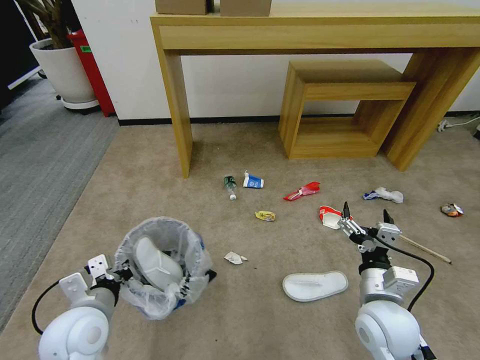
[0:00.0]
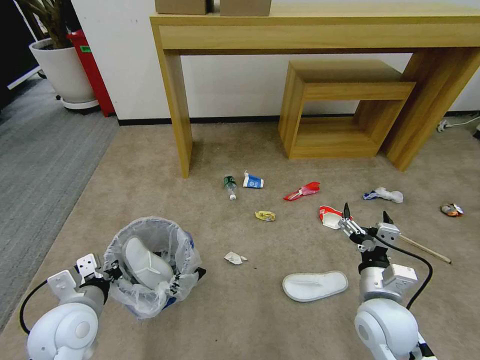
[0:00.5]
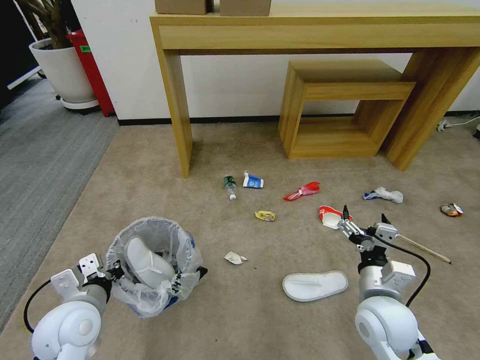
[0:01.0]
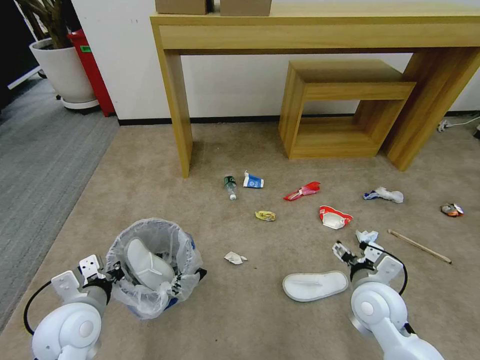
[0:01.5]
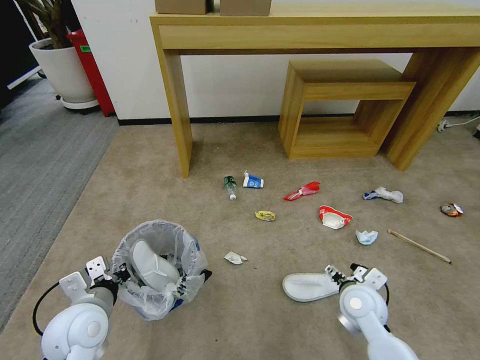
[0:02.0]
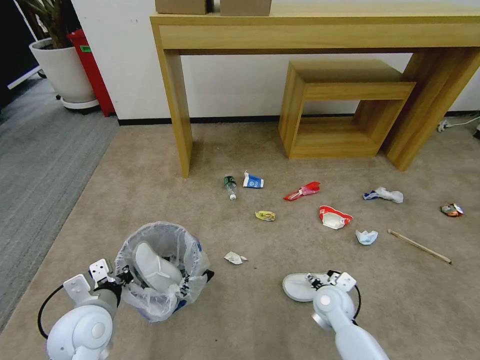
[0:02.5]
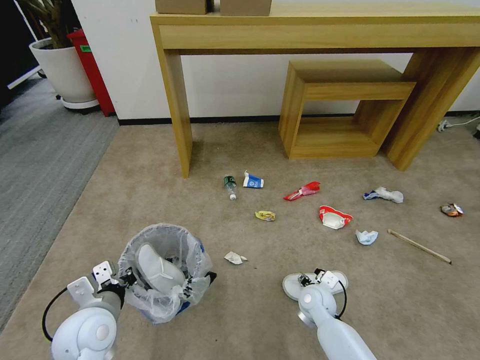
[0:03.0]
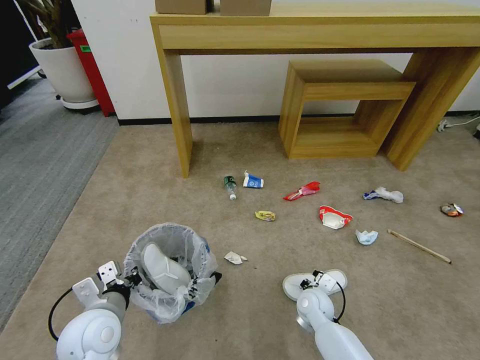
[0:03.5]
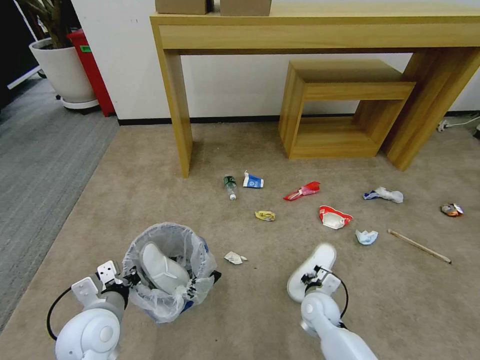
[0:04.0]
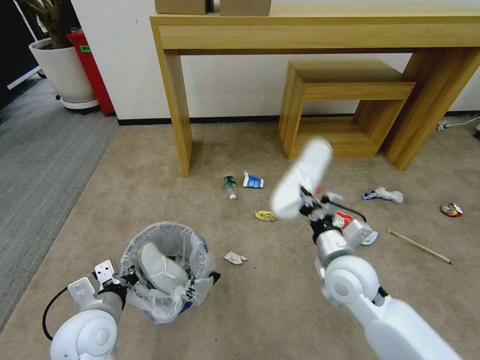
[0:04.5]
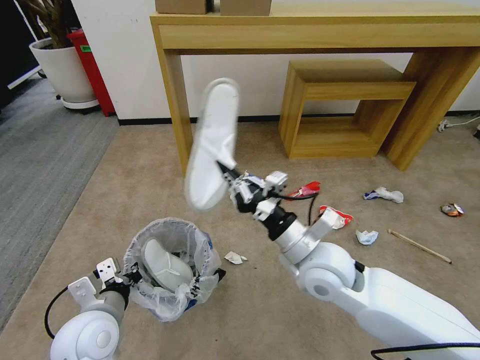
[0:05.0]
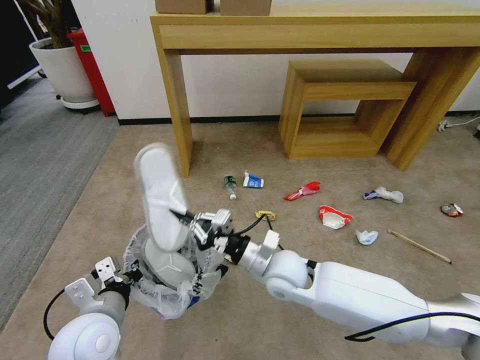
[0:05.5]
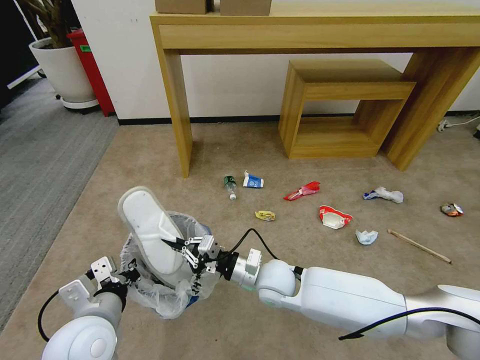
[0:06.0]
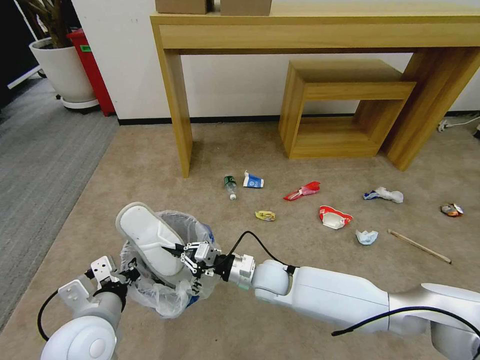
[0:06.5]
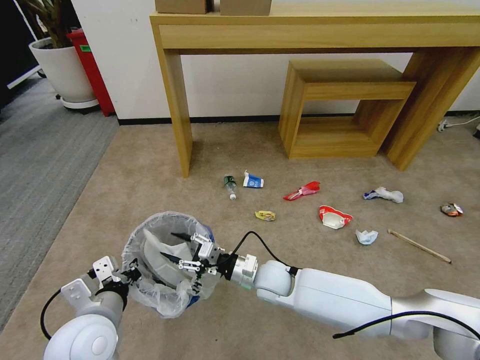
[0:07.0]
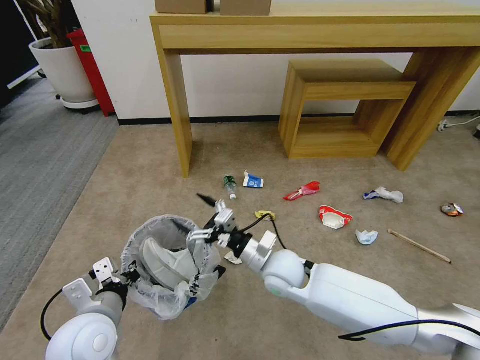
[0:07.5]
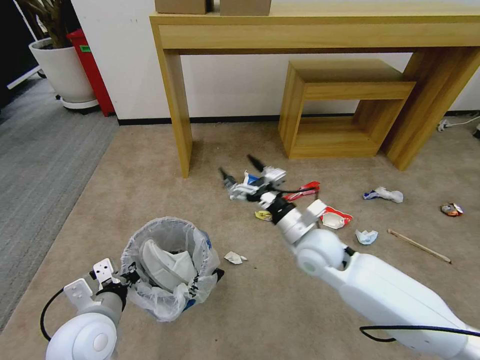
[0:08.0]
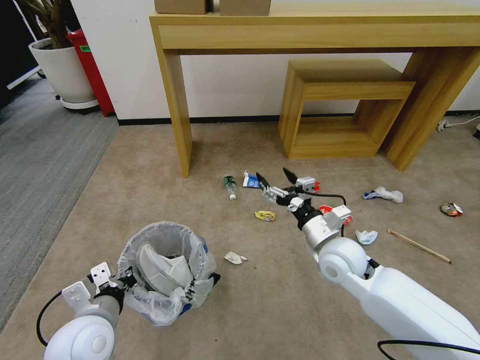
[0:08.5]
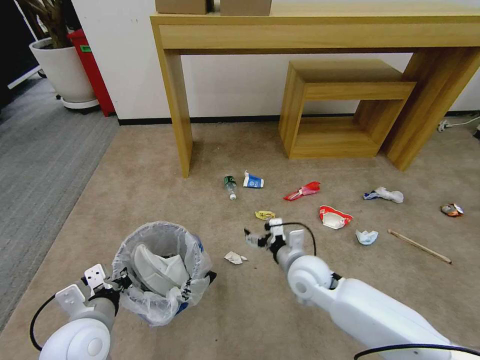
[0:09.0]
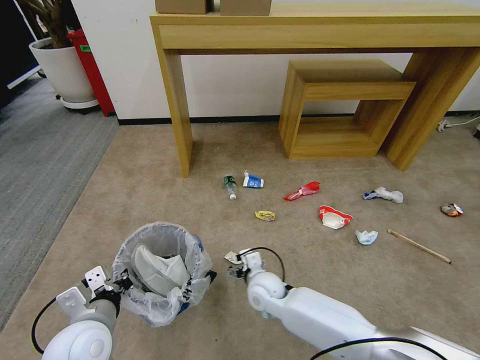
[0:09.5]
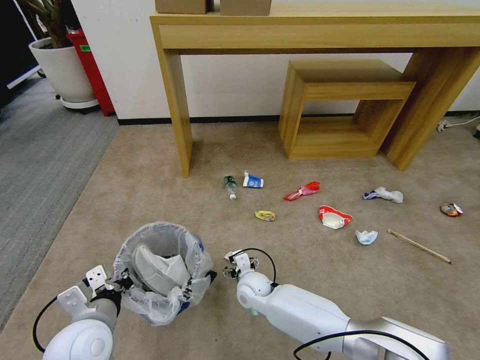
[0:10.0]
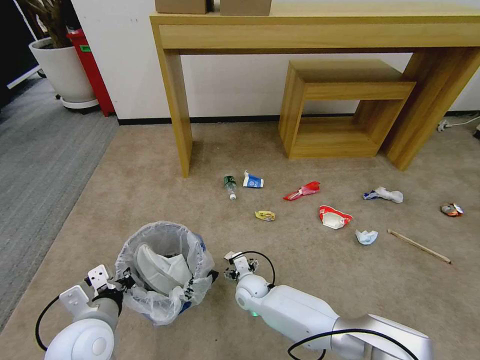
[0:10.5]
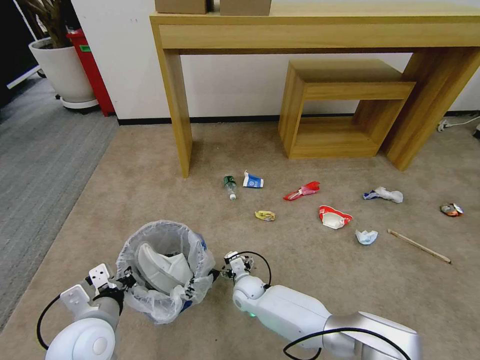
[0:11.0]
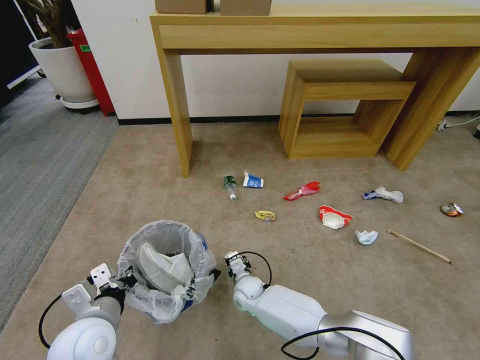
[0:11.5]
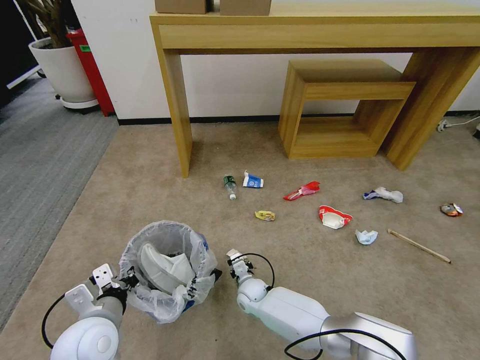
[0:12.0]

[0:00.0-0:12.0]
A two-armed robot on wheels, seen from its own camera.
Task of the whole recording: Pick up the trash bin and place the garbage on the floor into it.
0:00.0 to 0:02.0: The right gripper moves downward and forward, about 10 cm.
0:02.0 to 0:04.0: The right gripper heads downward and to the left, covering about 10 cm, and closes its fingers.
0:04.0 to 0:06.0: The right gripper heads to the left and upward, covering some 20 cm. The left gripper moves roughly 5 cm.
0:06.0 to 0:08.0: The right gripper goes some 10 cm upward and to the right, and opens.
0:08.0 to 0:10.0: The right gripper moves downward and to the left, about 25 cm.
0:10.0 to 0:12.0: The right gripper heads downward, covering about 5 cm, and closes its fingers.

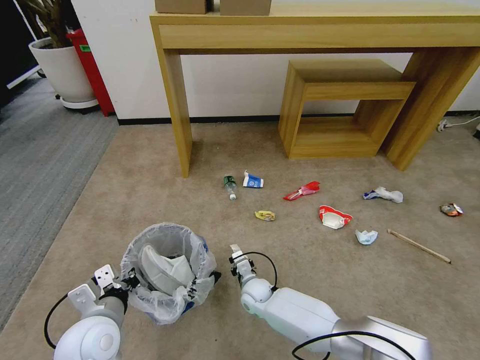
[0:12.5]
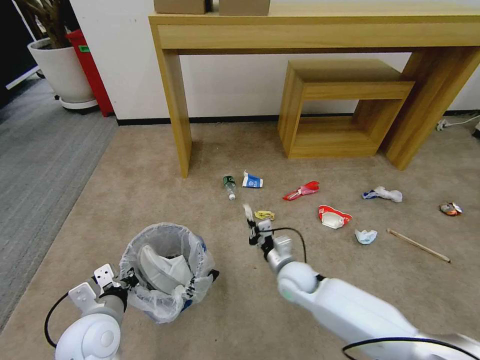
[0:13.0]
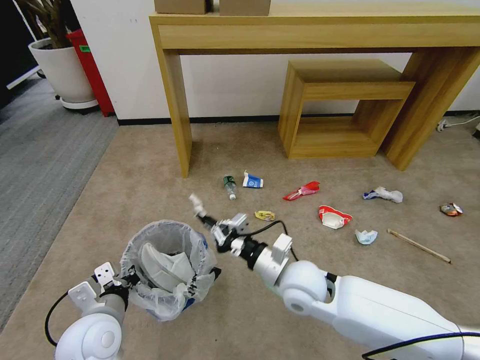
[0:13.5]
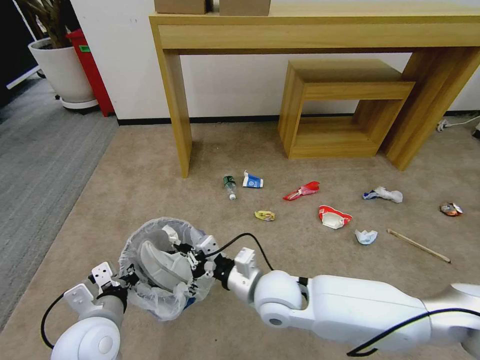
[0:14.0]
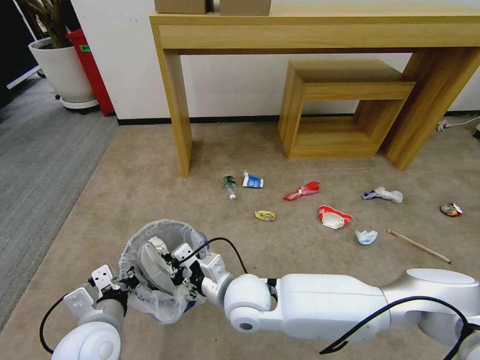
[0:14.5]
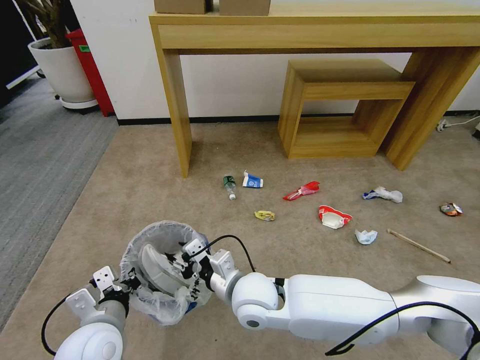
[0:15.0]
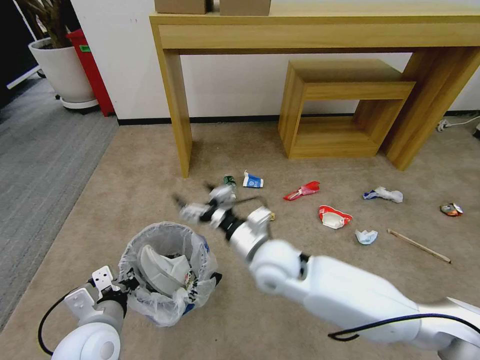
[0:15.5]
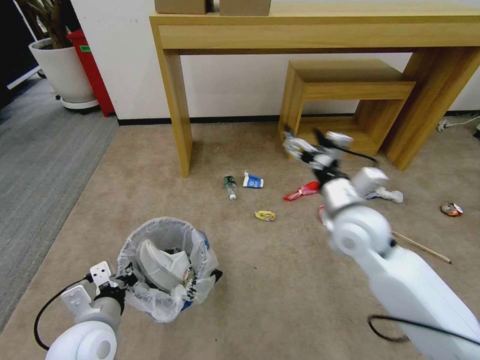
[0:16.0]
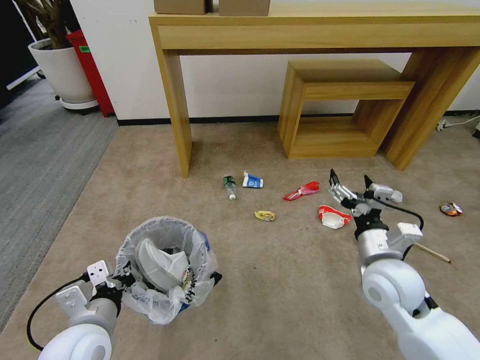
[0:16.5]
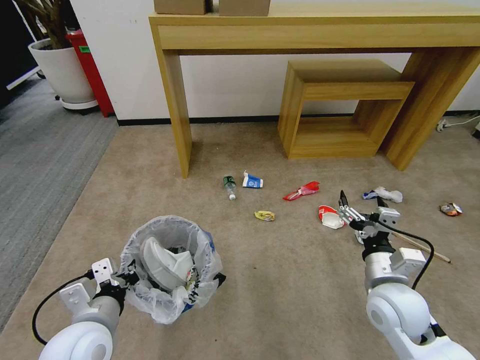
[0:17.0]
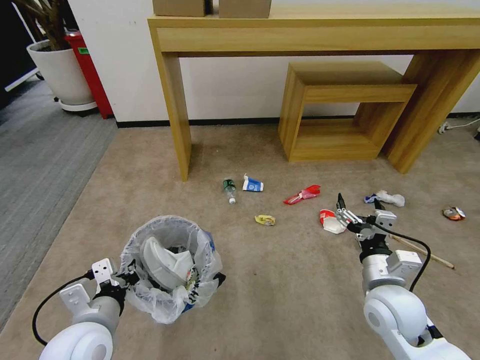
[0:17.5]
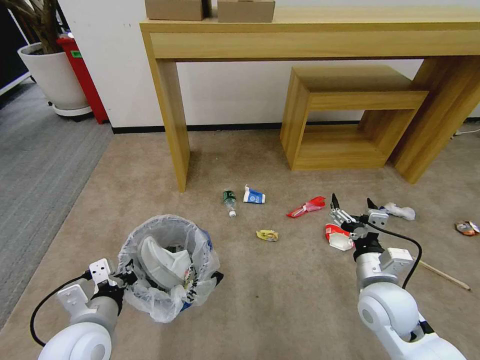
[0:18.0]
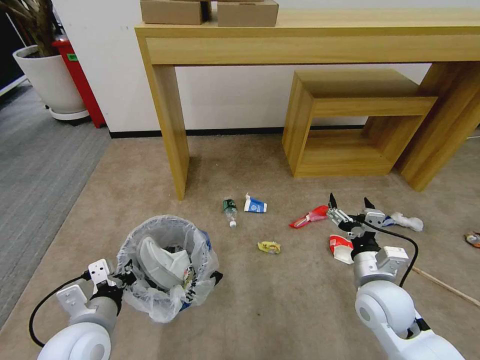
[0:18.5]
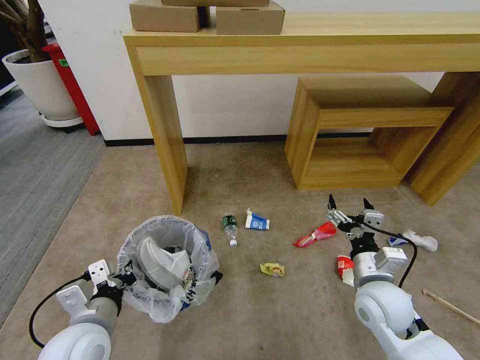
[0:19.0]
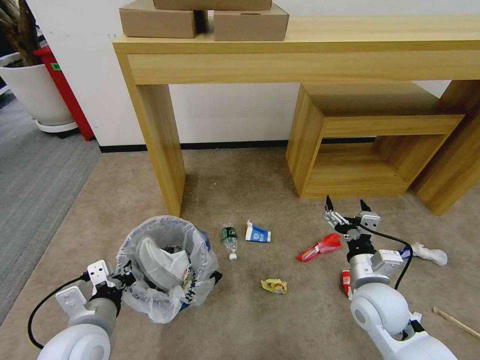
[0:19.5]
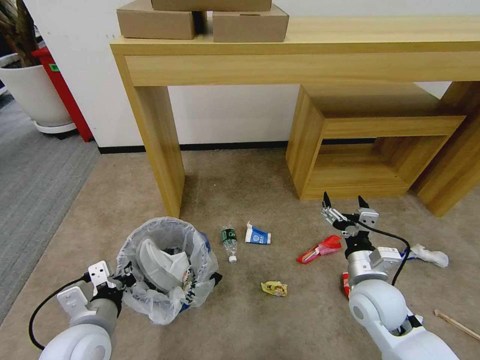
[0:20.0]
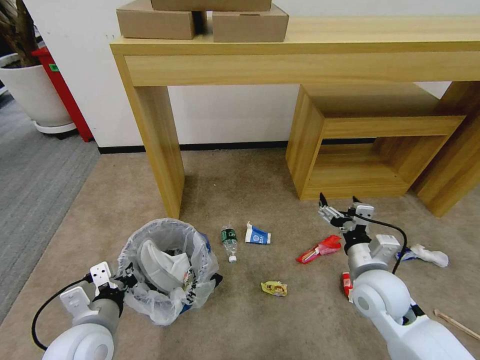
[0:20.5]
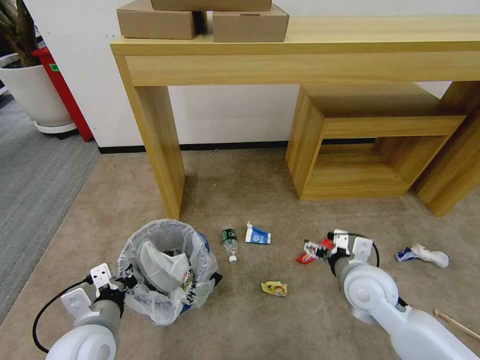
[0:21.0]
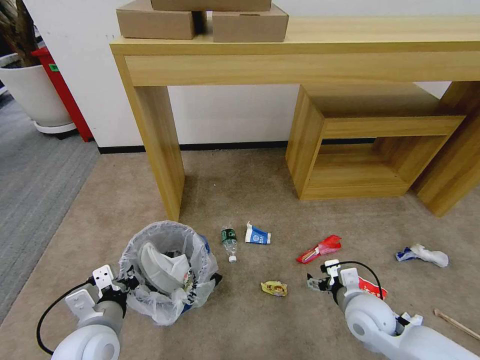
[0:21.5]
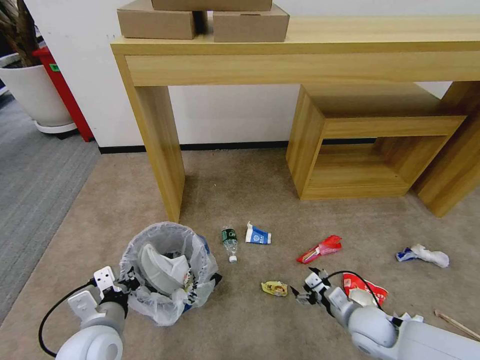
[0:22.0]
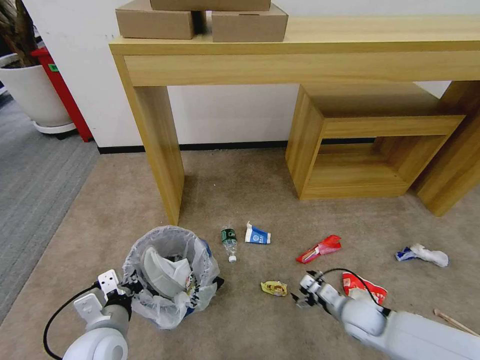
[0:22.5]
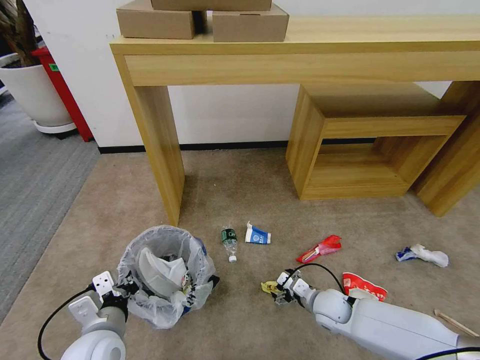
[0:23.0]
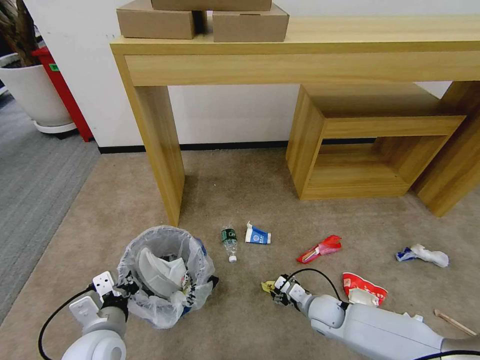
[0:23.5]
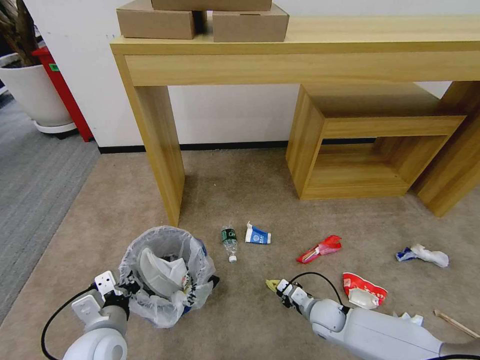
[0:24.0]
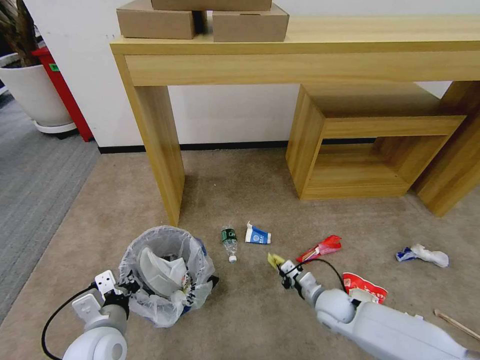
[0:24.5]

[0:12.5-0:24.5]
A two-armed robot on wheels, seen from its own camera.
Task of the whole recording: Pick up the trash bin and place the garbage on the floor into it.
0:12.5 to 0:14.5: The right gripper shifts some 25 cm upward and backward.
0:14.5 to 0:16.5: The right gripper shifts some 25 cm to the right, and opens up.
0:16.5 to 0:18.5: The right gripper heads downward, covering about 5 cm.
0:20.5 to 0:22.5: The right gripper travels downward by roughly 15 cm.
0:22.5 to 0:24.5: The right gripper closes.

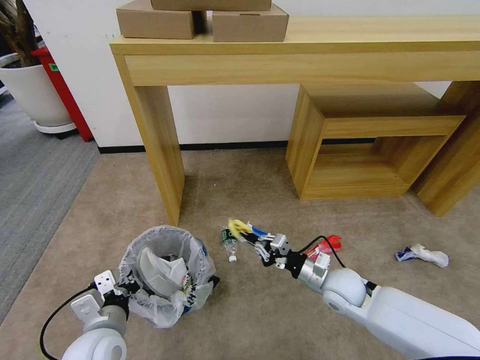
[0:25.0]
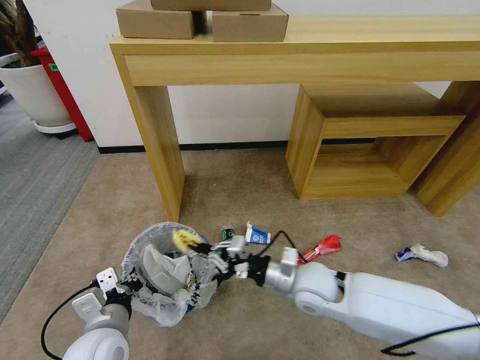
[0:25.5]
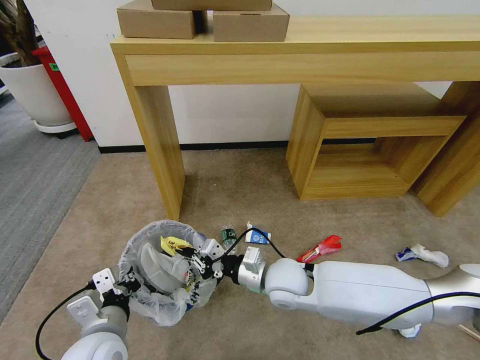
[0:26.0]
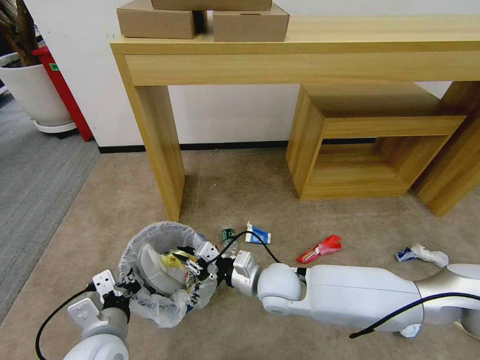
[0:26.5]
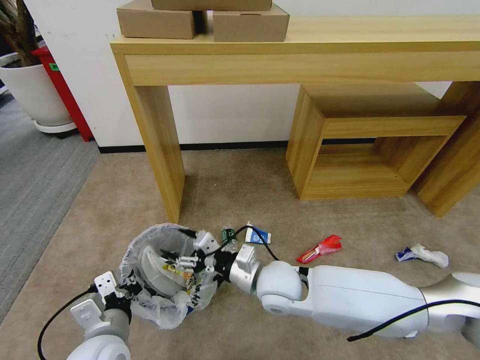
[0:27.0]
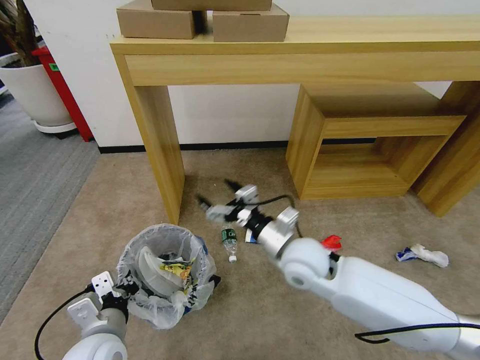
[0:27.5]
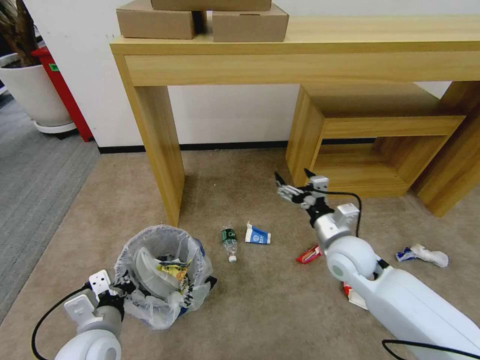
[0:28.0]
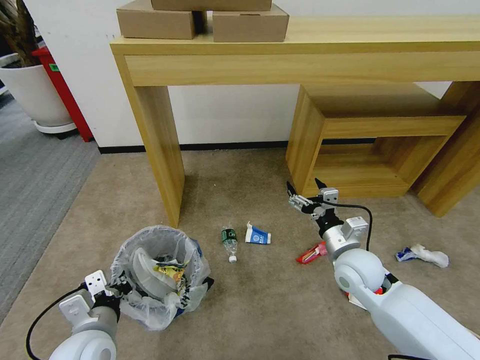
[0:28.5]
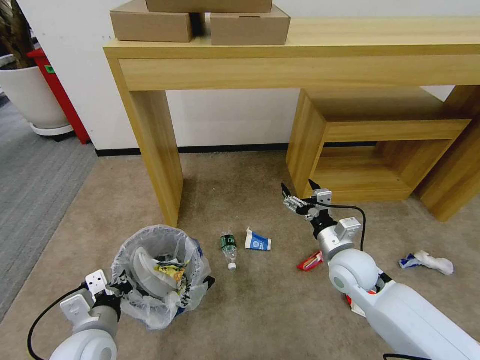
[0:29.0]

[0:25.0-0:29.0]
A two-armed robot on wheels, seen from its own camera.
Task of the whole recording: Pick up the trash bin and place the garbage on the floor into it.
0:25.0 to 0:27.0: The right gripper goes approximately 20 cm to the left and upward, and opens.
0:27.0 to 0:29.0: The right gripper is displaced to the right by approximately 15 cm.
